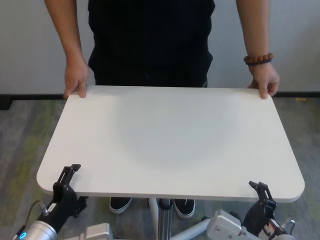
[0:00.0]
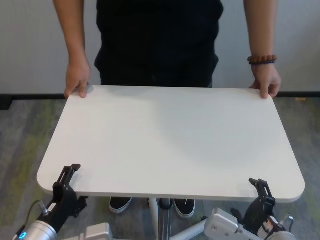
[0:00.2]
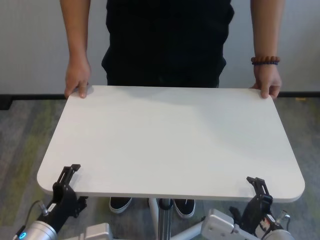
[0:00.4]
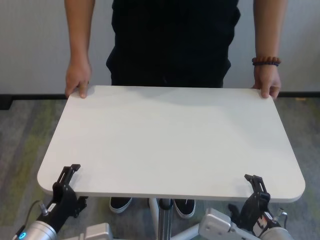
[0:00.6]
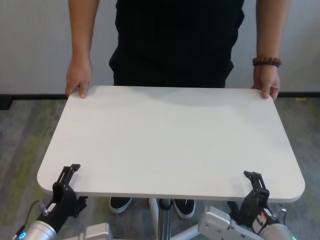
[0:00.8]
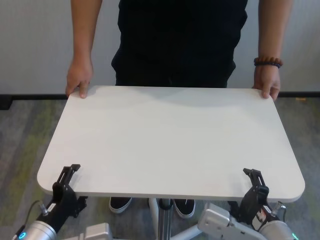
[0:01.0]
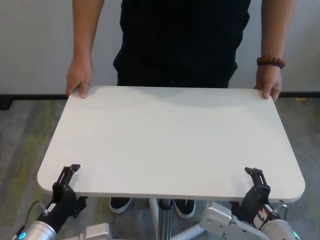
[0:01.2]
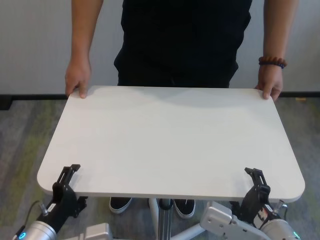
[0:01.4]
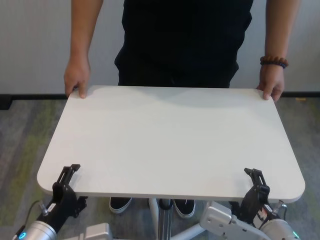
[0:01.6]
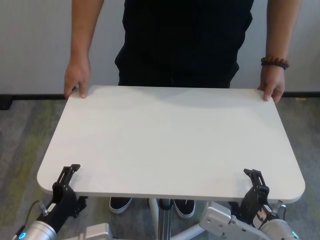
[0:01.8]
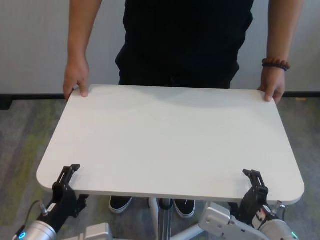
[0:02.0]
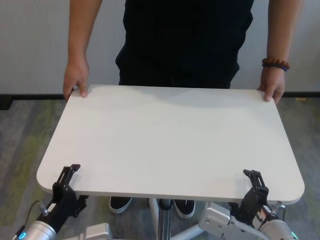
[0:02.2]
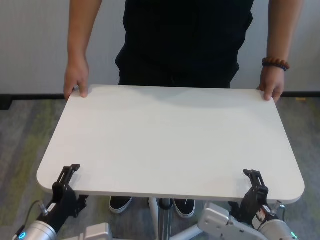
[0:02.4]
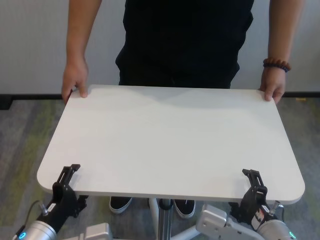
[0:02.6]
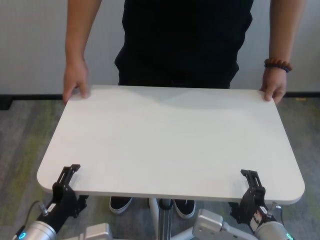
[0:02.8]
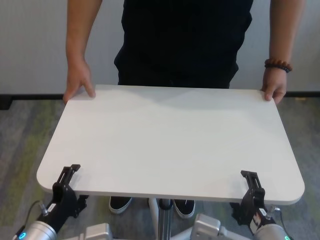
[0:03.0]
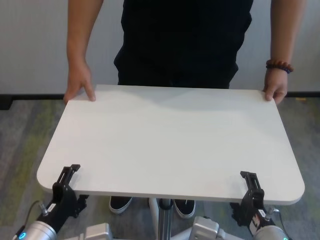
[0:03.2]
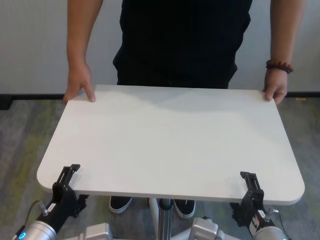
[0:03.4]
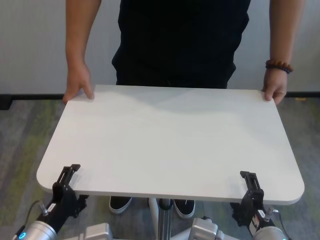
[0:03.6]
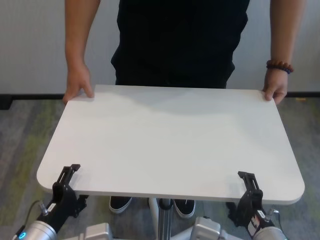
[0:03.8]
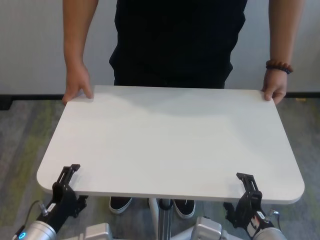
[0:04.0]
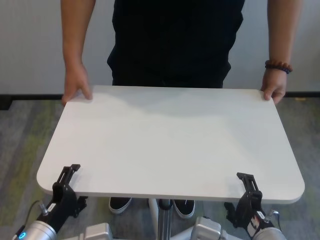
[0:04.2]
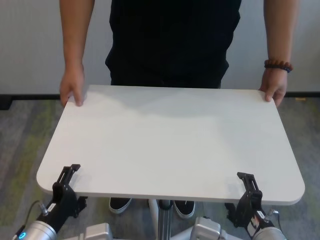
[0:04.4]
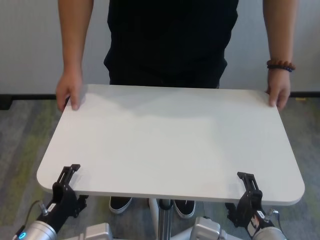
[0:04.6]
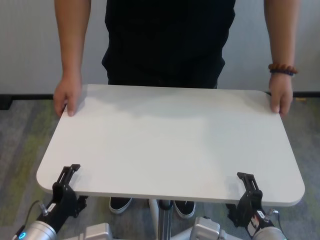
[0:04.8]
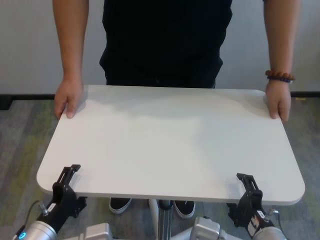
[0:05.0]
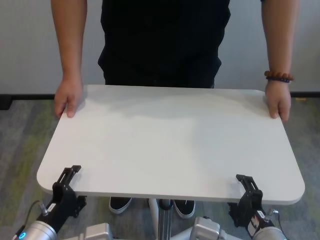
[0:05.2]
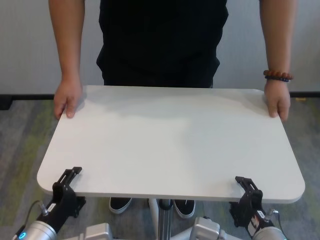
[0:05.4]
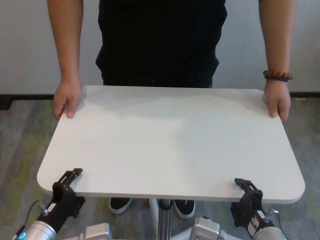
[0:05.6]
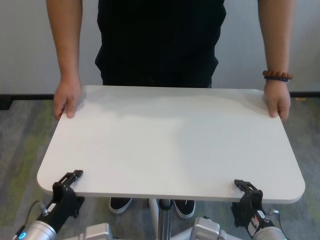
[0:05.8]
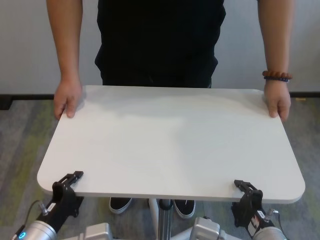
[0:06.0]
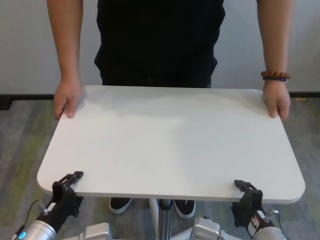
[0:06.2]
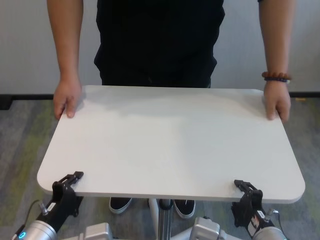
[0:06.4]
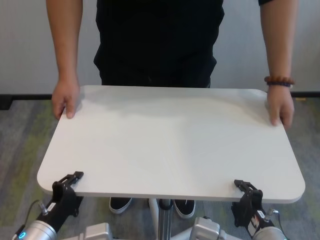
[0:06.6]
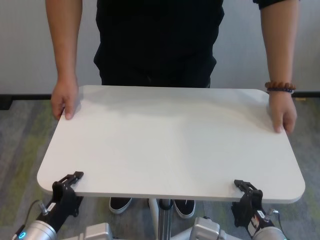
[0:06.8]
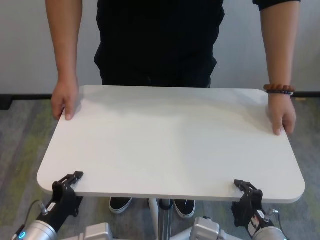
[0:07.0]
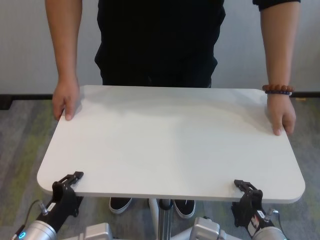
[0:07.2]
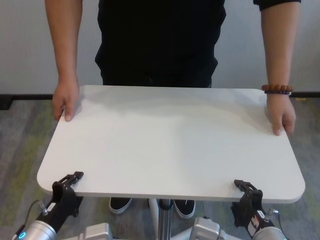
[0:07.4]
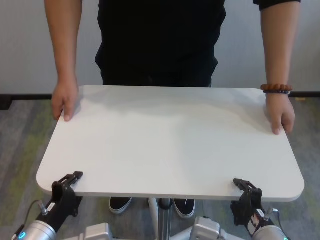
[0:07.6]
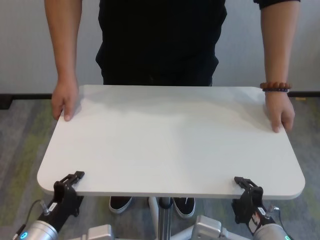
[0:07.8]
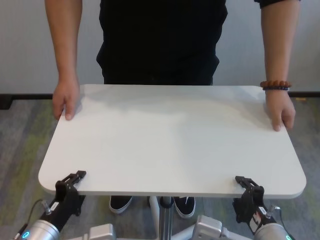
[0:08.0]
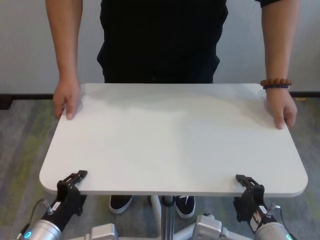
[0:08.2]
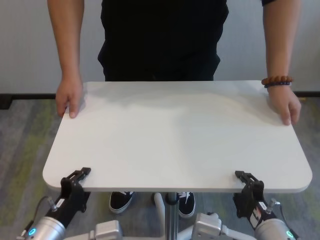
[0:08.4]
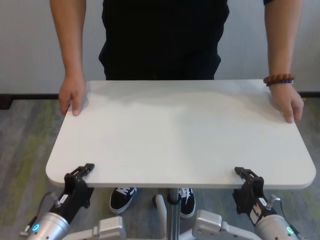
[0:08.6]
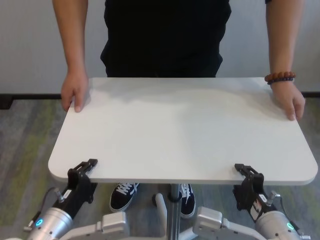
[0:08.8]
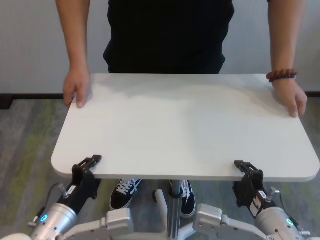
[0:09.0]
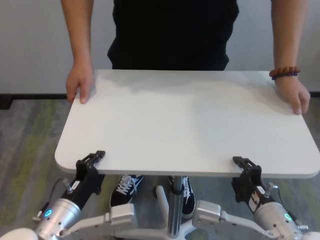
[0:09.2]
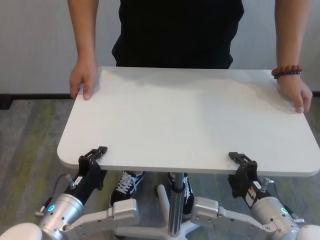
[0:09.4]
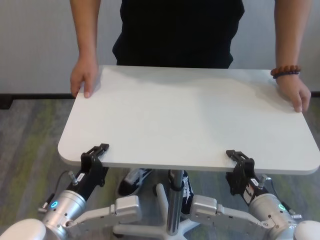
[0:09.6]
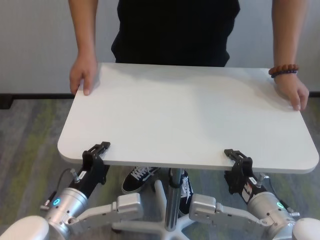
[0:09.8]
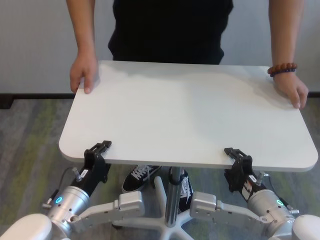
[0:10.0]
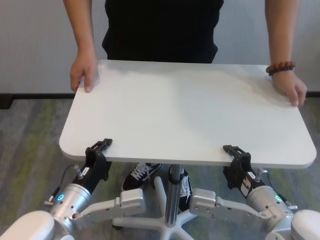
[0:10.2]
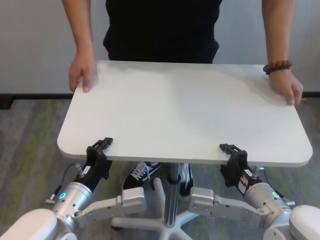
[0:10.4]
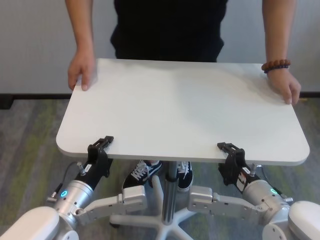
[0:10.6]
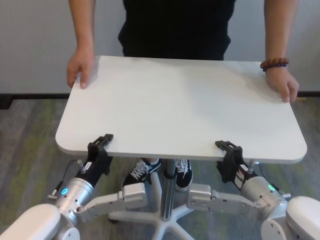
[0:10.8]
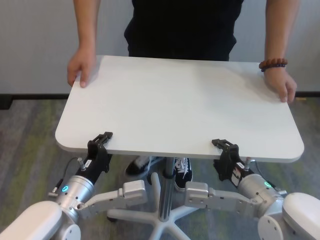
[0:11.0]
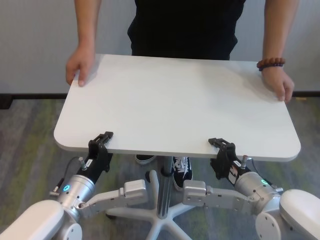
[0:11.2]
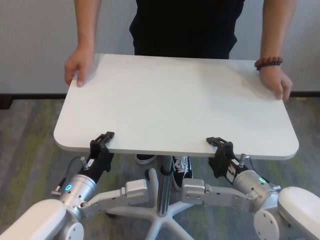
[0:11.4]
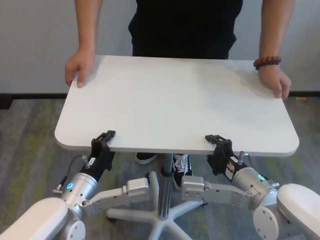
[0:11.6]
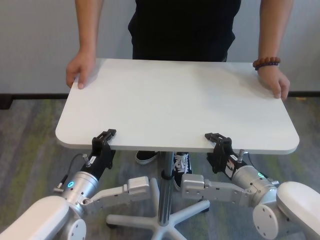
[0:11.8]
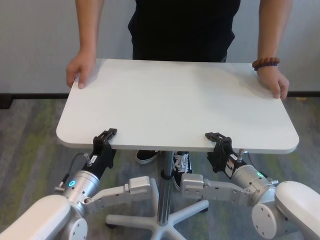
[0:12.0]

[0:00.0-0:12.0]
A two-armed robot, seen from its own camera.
Task of the whole recording: human machine collaborative table moving.
Step, 0:00.0 to 0:05.8: Grasp the table with both grippers.

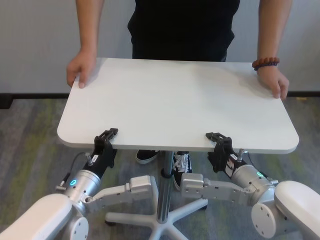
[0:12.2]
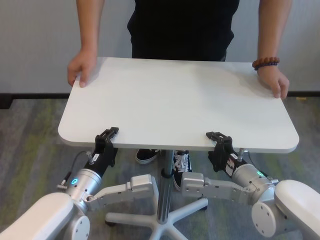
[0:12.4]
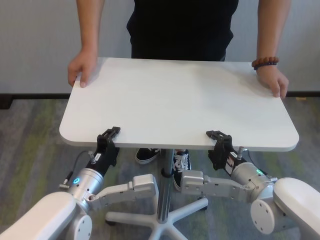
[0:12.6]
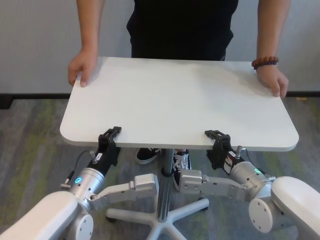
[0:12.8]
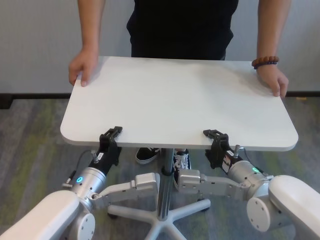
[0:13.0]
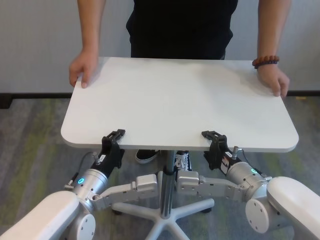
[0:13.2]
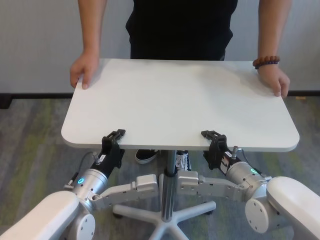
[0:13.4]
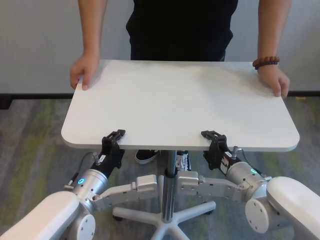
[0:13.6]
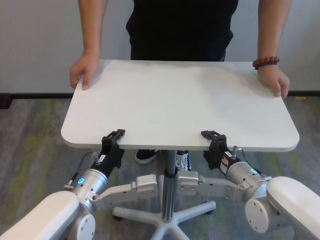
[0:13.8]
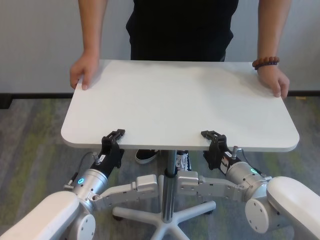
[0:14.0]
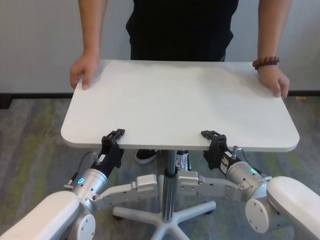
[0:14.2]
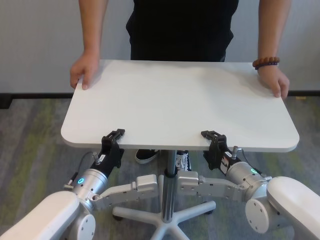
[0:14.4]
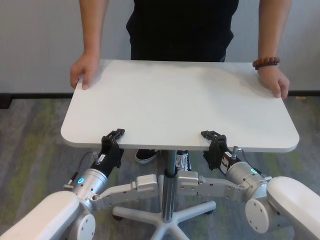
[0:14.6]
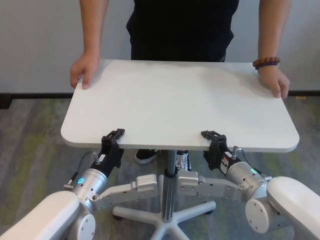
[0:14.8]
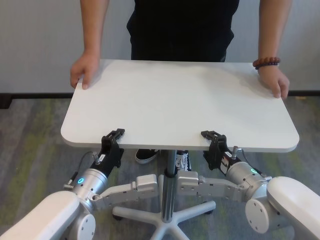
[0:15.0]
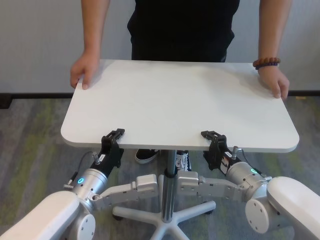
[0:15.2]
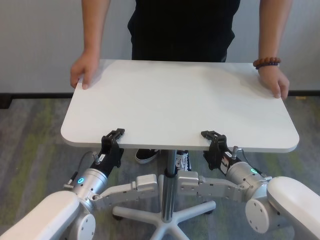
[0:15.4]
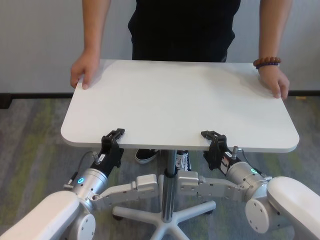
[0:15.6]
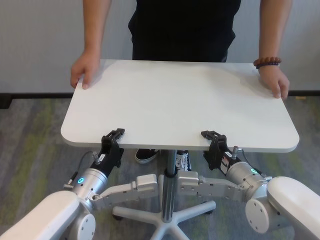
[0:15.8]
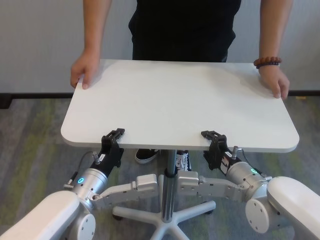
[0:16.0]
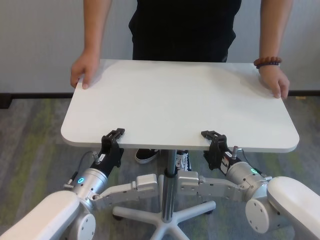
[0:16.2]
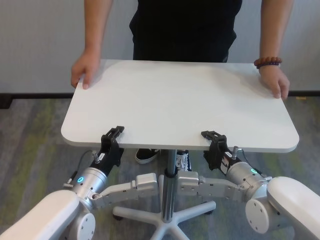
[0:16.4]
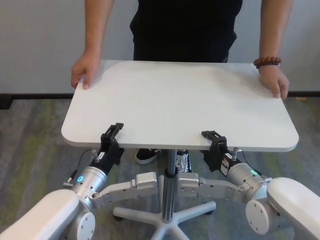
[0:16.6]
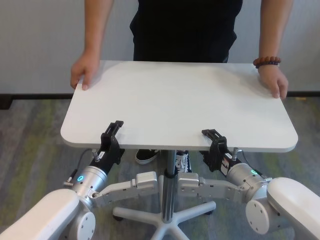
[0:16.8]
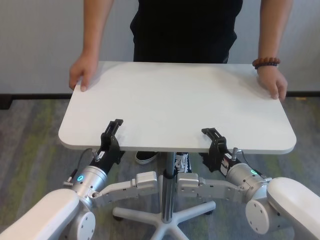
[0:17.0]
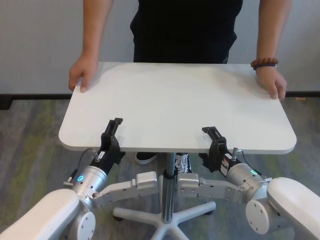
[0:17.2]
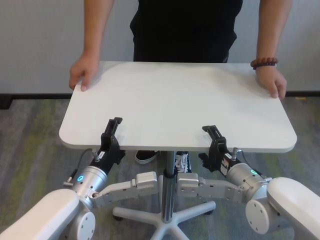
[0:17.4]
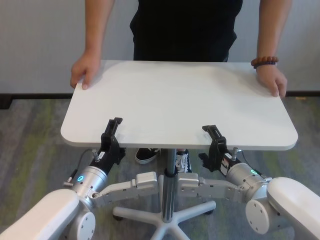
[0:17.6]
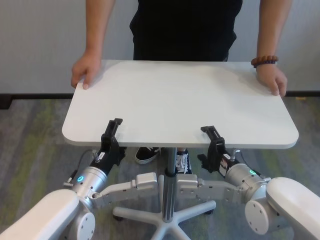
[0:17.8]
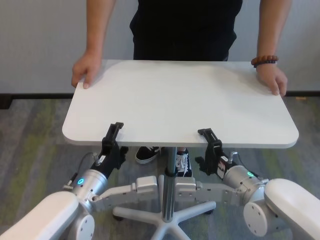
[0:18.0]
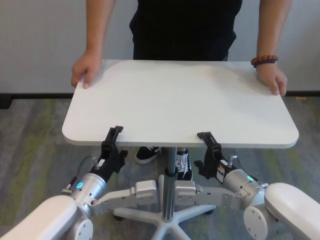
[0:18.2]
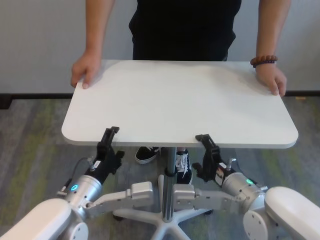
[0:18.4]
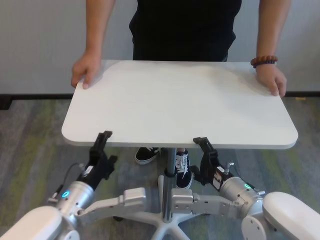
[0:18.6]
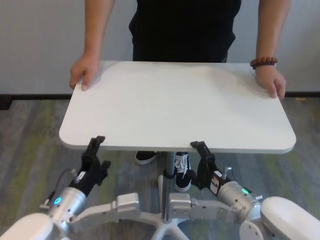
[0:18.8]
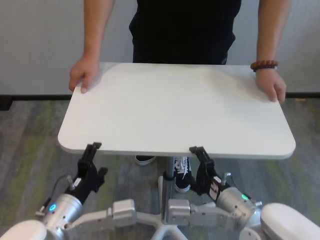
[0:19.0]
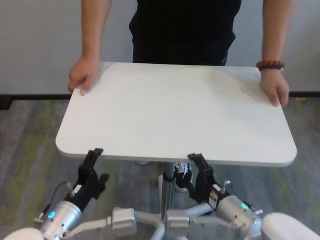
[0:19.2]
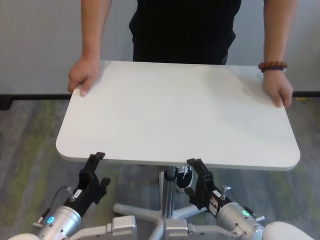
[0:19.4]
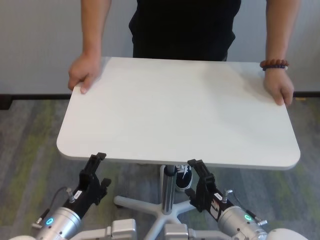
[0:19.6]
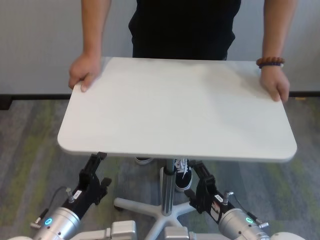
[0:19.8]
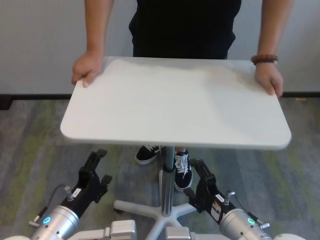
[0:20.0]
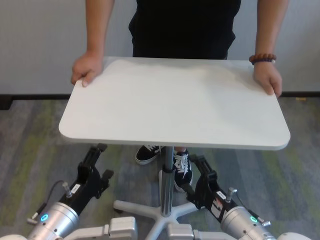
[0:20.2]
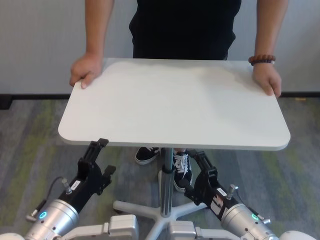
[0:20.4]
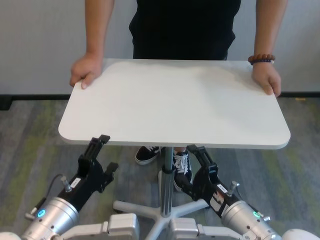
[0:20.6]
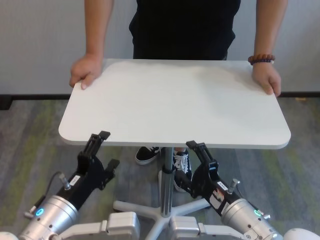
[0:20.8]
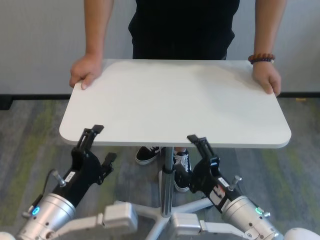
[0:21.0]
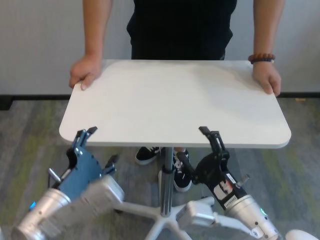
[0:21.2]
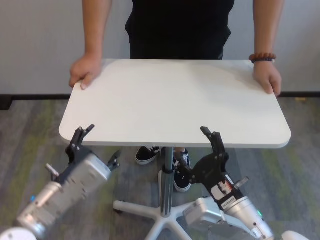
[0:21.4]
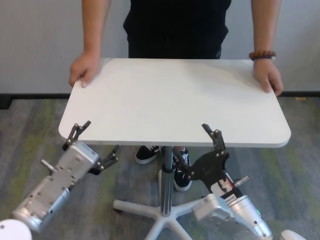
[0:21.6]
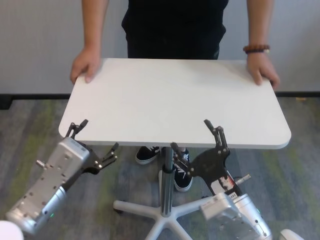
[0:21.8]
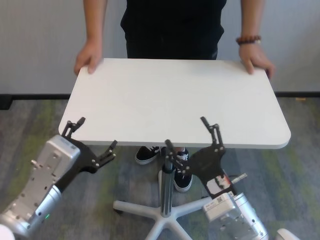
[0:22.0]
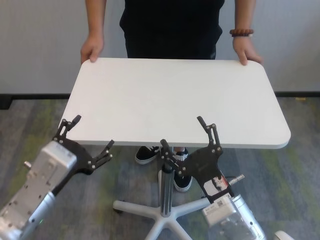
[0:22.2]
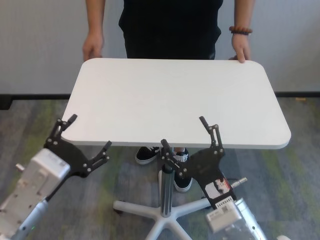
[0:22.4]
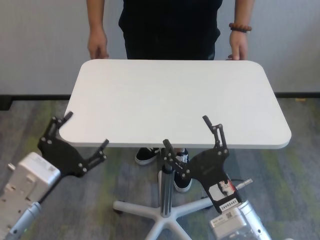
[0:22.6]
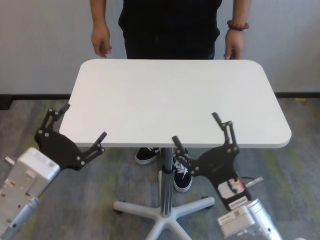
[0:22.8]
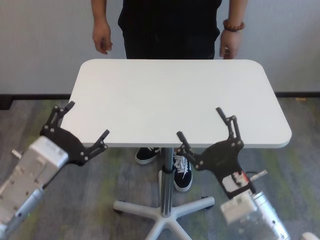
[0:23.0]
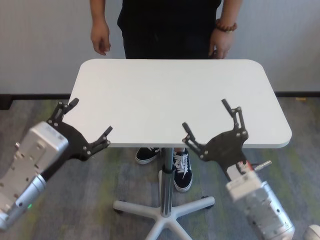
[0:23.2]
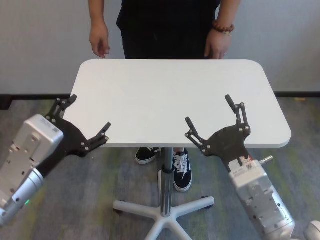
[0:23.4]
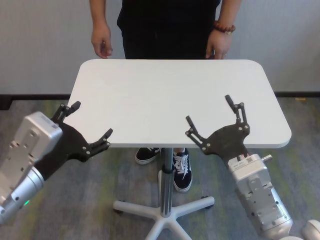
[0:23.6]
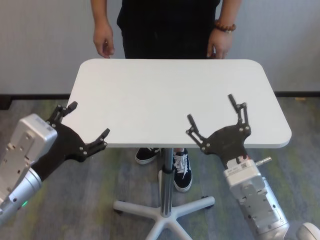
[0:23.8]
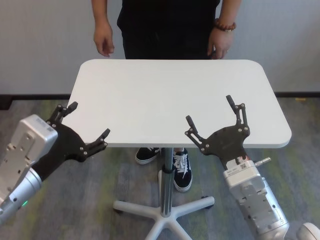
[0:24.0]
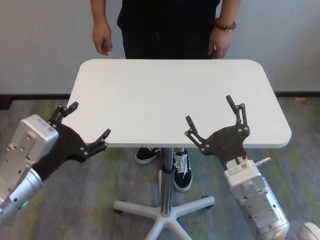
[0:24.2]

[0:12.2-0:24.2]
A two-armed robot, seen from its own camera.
Task of the whole recording: human machine collaborative table moving.
Step, 0:12.2 to 0:17.4: Move the table forward with both grippers.
